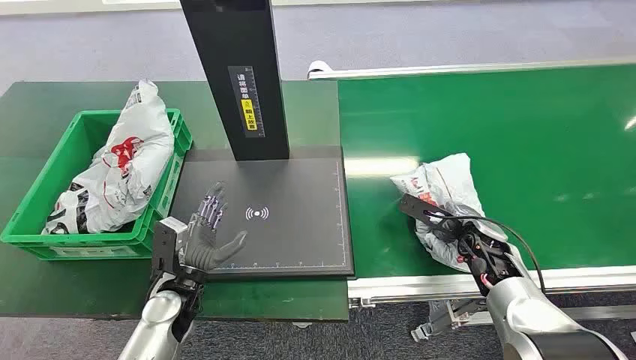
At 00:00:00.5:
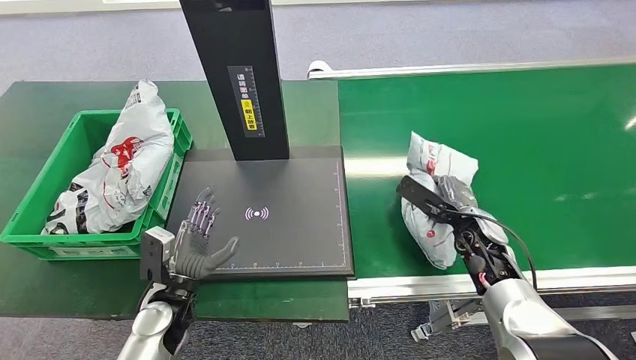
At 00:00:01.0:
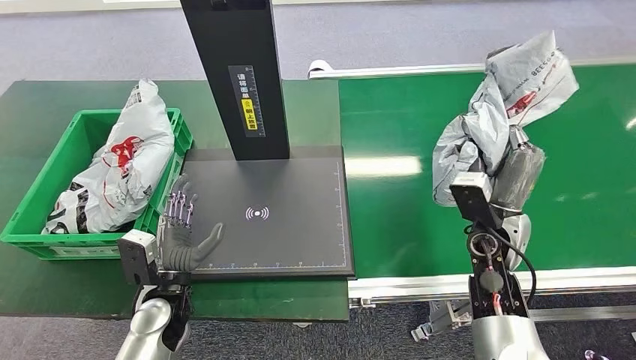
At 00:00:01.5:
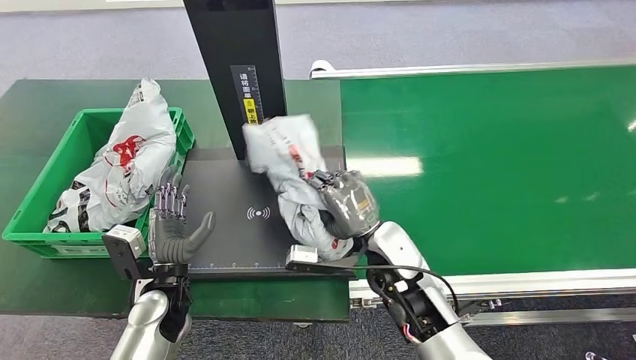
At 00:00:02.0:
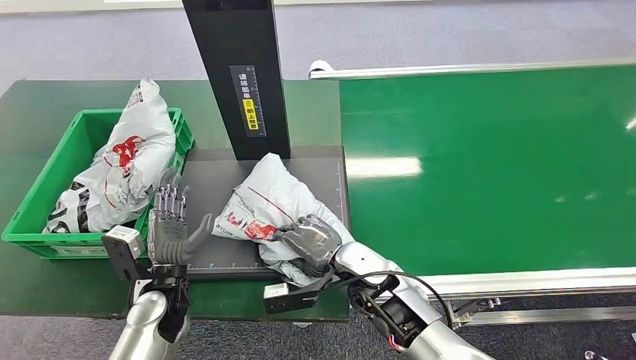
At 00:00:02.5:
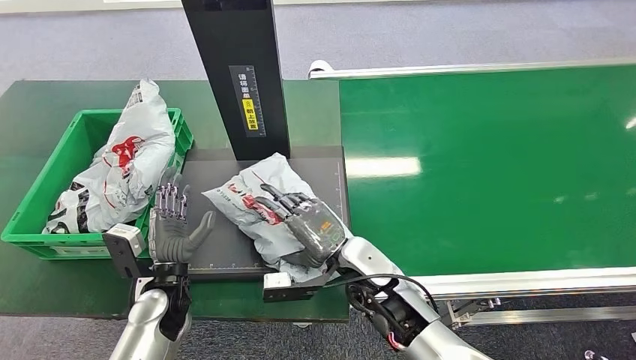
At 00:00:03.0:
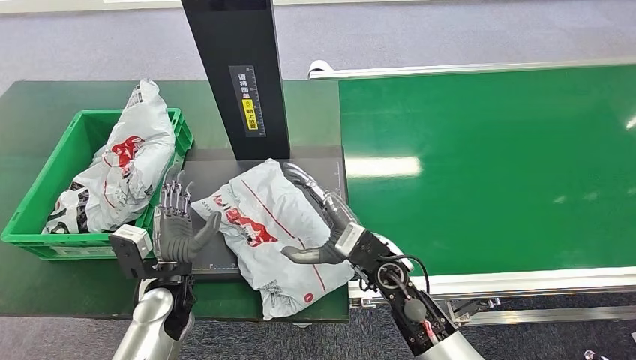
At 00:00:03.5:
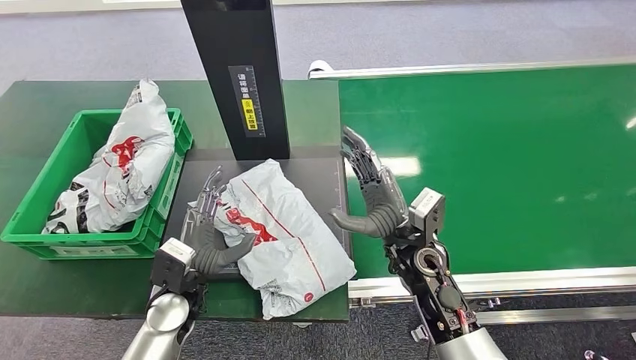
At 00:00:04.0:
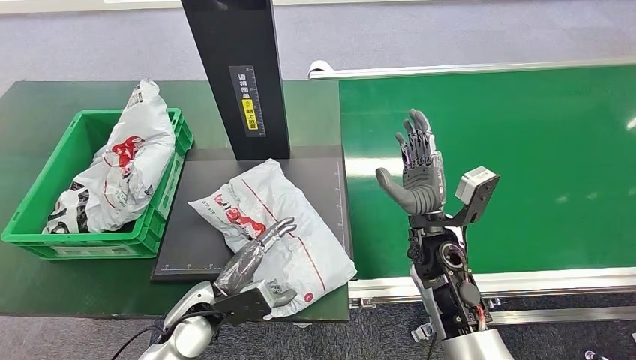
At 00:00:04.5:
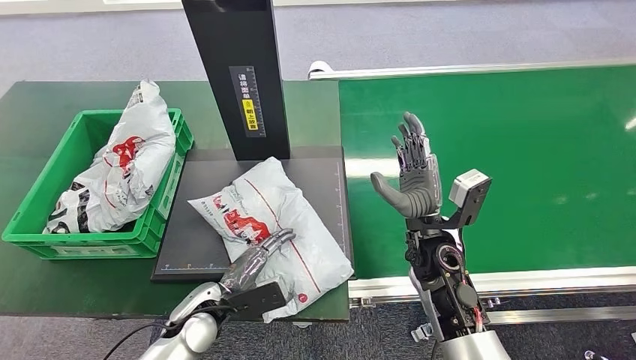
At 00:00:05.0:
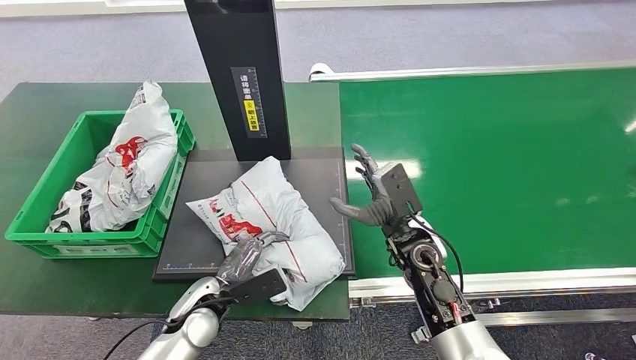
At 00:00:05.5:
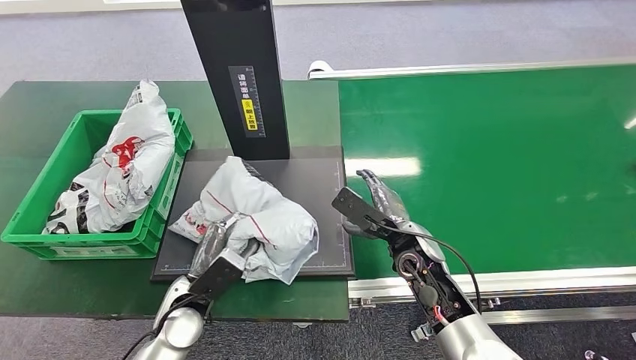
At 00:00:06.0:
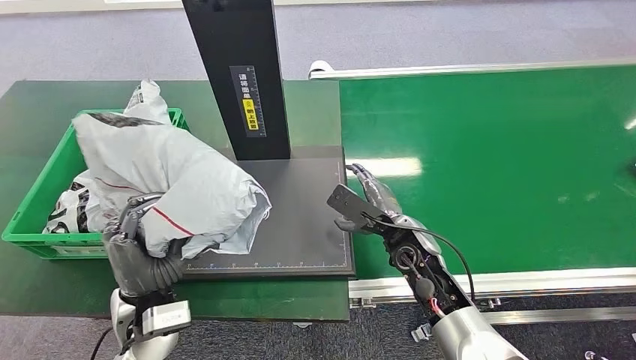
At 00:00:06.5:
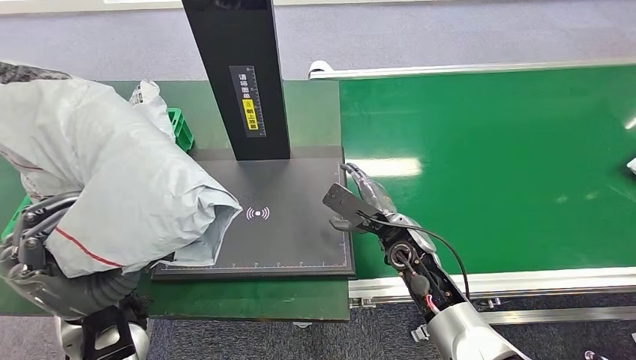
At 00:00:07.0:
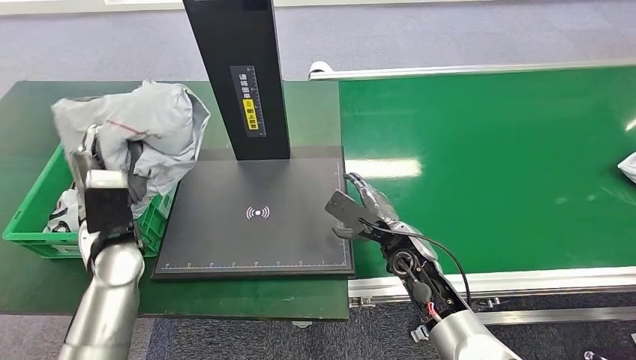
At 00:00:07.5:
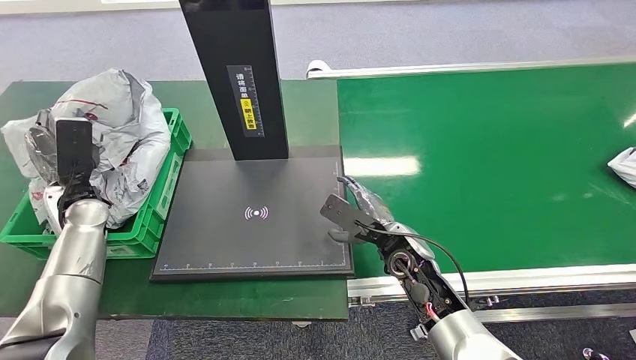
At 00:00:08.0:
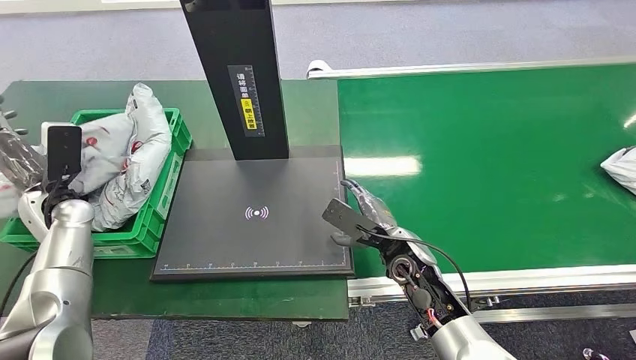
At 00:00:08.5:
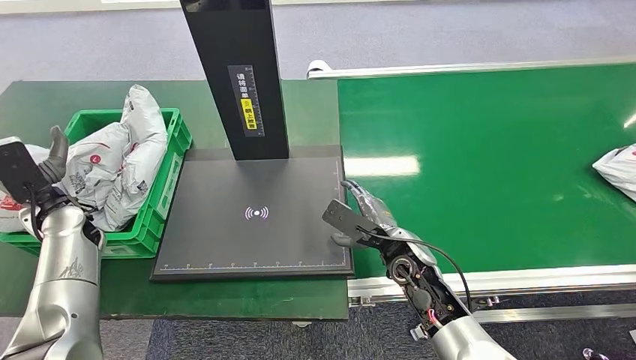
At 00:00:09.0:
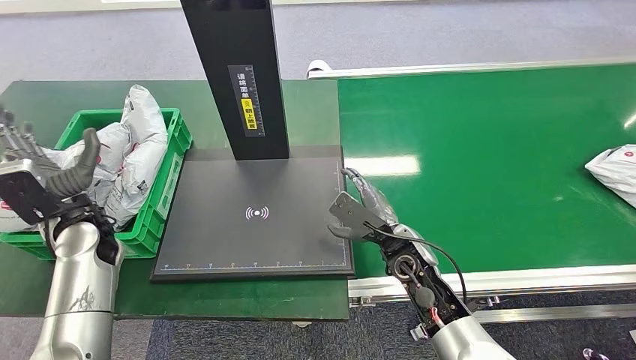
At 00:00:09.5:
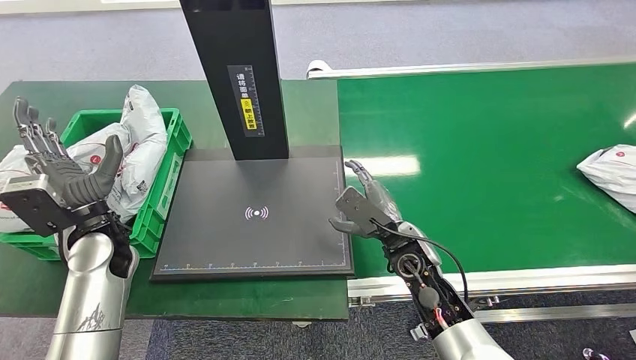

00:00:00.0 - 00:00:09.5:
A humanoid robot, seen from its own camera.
Step, 00:00:00.0 - 00:00:01.0: Pick up the package from the conveyor belt.
Step, 00:00:01.5 - 00:00:03.0: Place the package onto the inbound machine.
Step, 00:00:04.0 - 00:00:05.5: Pick up the package from the inbound machine.
Step, 00:00:06.5 - 00:00:09.5: Place the package into the parcel locker.
00:00:02.0 - 00:00:04.0: The right hand heads to the right and upward, covering approximately 10 cm. The left hand travels to the right by approximately 5 cm.
00:00:07.5 - 00:00:09.5: The left hand is displaced to the right and backward by approximately 10 cm.
